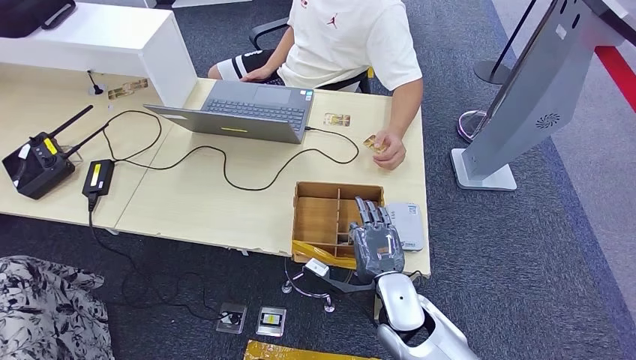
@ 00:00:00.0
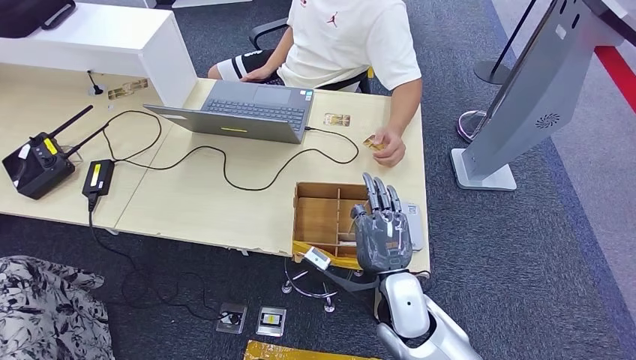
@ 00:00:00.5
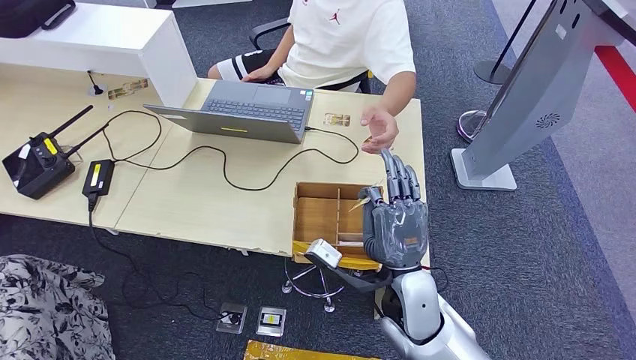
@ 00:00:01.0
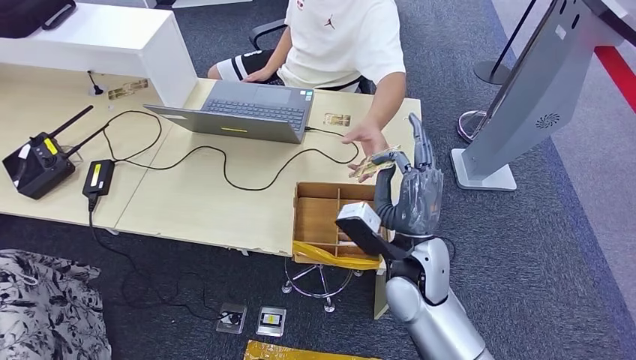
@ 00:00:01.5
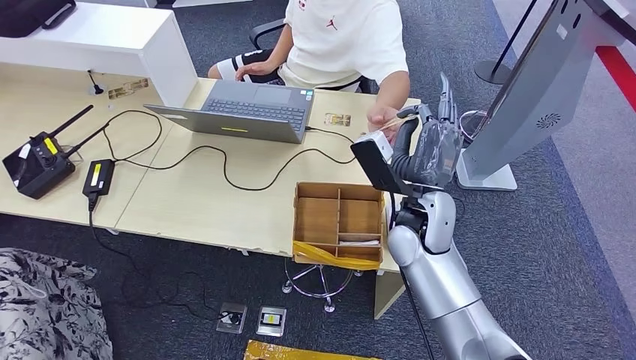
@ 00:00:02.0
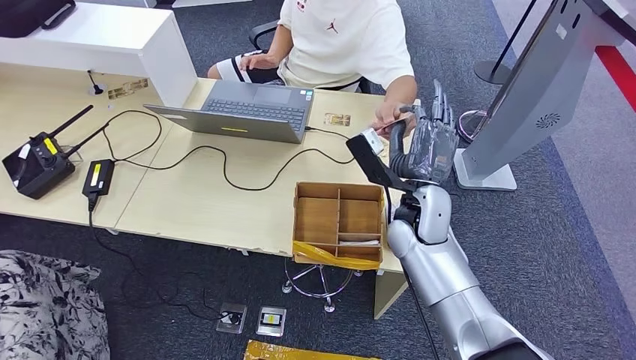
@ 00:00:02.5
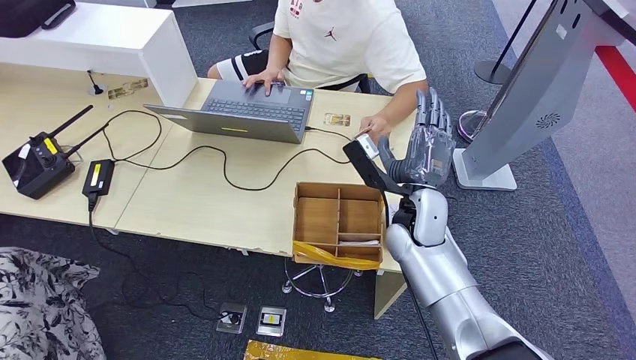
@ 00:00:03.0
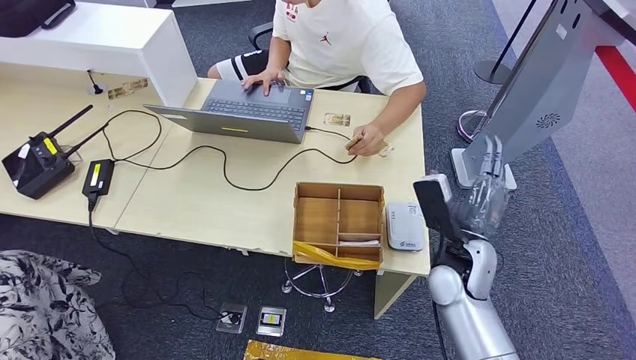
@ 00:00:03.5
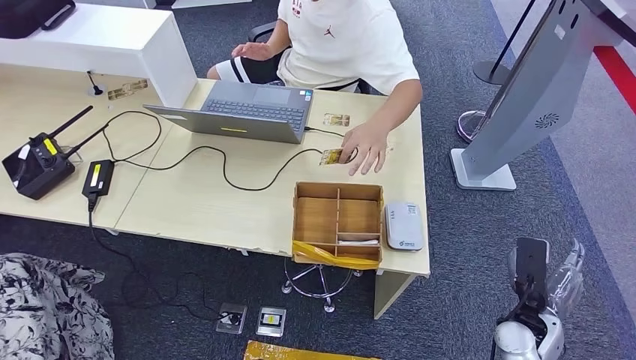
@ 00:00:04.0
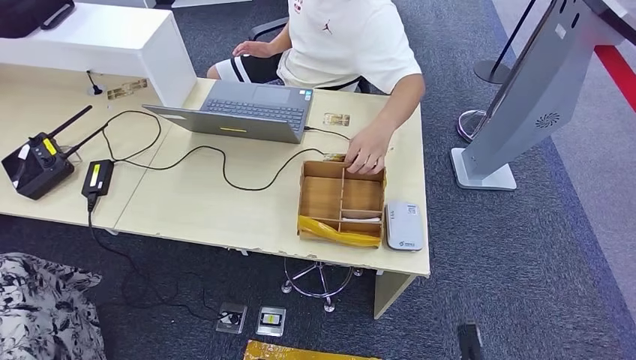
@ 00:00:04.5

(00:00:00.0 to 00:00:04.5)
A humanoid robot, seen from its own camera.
Step, 00:00:01.0 - 00:00:04.5: Hand the room key to the person.
00:00:00.0 - 00:00:02.0: The right hand is displaced upward and forward by approximately 15 cm.
00:00:02.0 - 00:00:04.5: The right hand travels downward, backward and to the right by about 40 cm.
